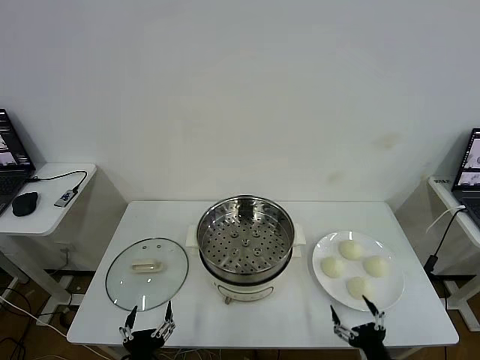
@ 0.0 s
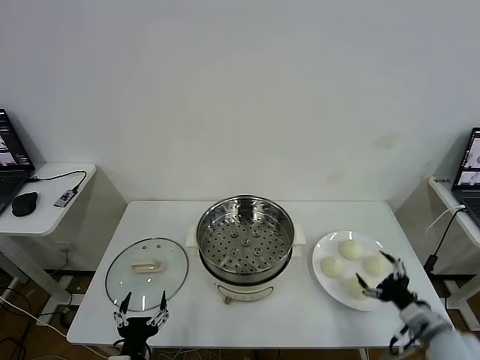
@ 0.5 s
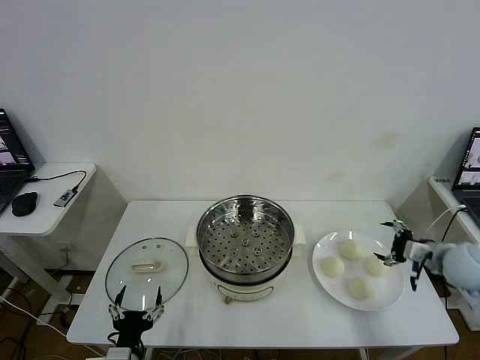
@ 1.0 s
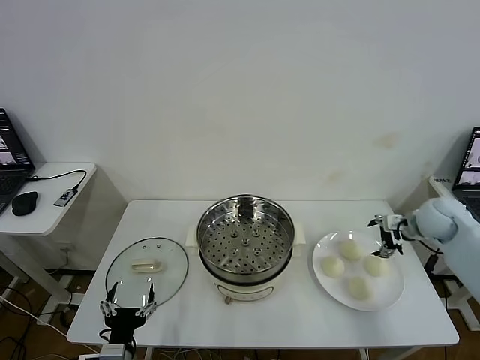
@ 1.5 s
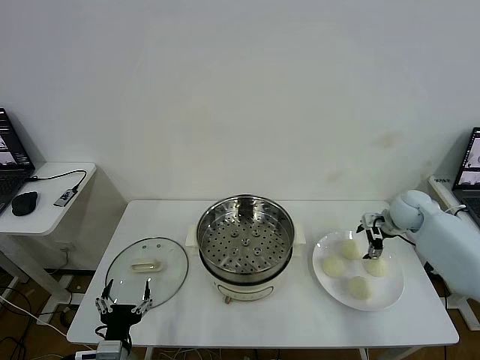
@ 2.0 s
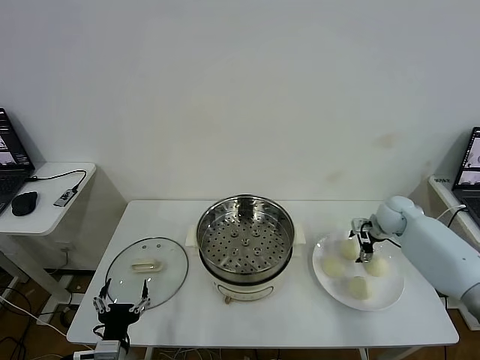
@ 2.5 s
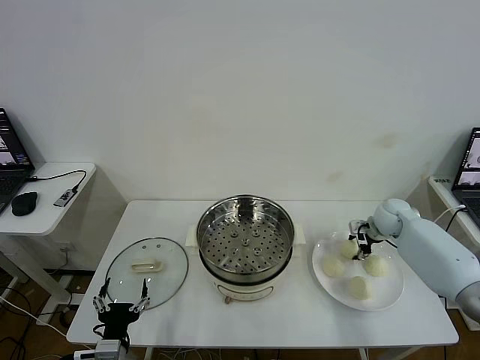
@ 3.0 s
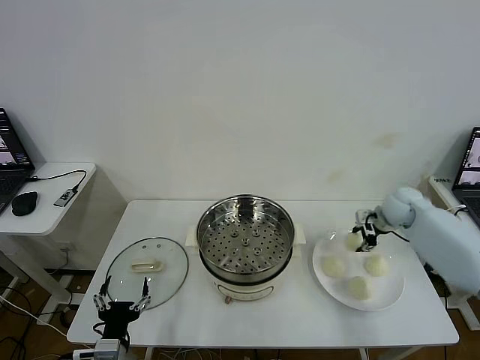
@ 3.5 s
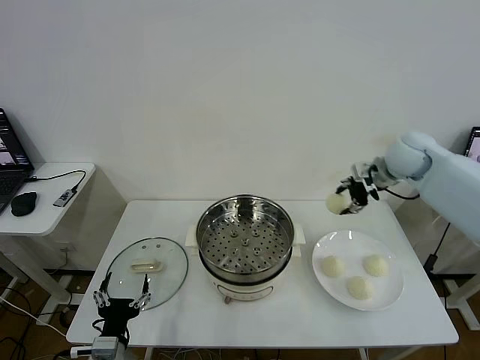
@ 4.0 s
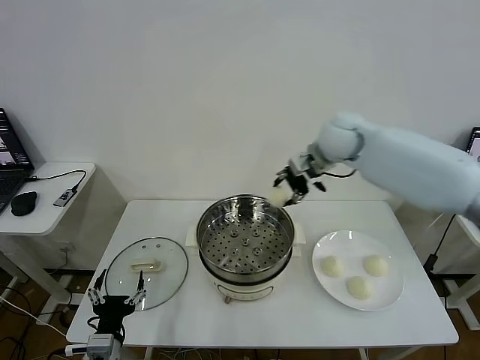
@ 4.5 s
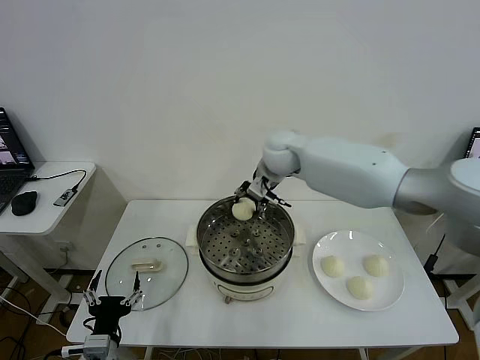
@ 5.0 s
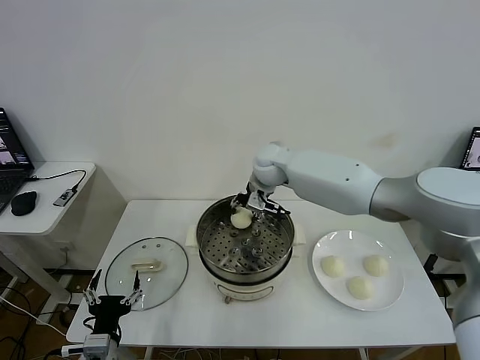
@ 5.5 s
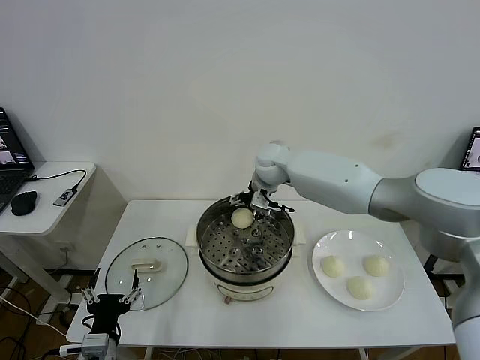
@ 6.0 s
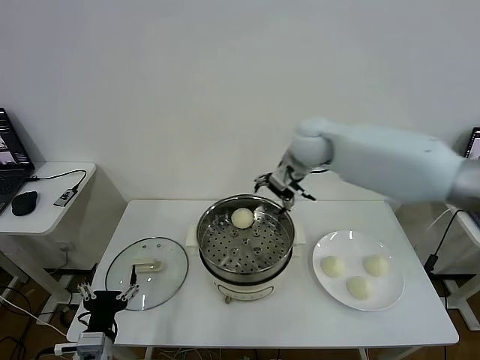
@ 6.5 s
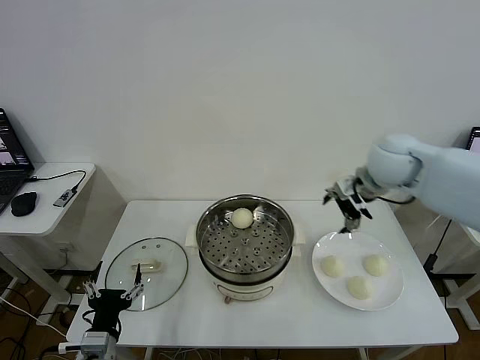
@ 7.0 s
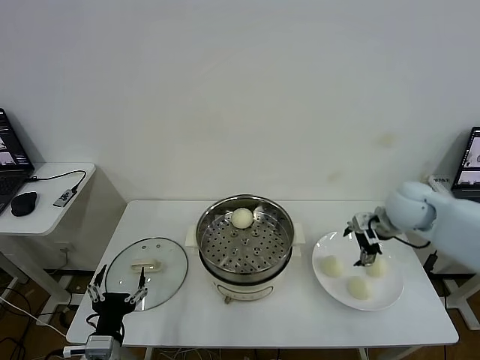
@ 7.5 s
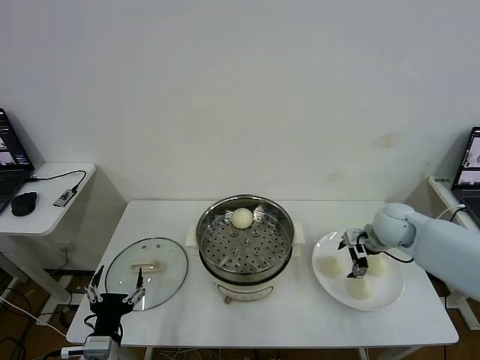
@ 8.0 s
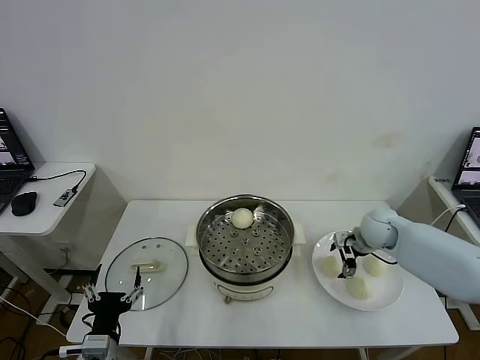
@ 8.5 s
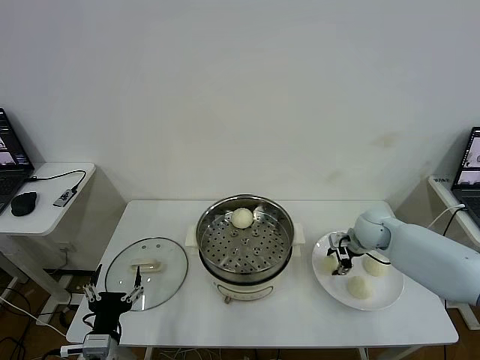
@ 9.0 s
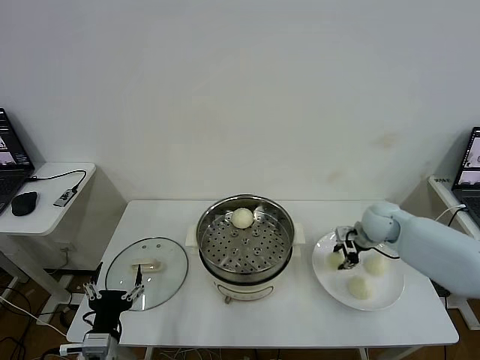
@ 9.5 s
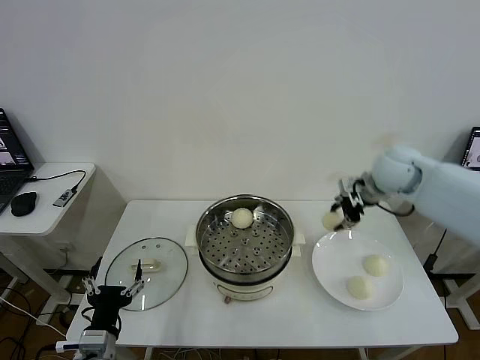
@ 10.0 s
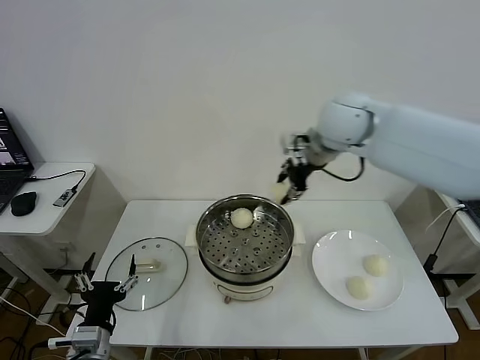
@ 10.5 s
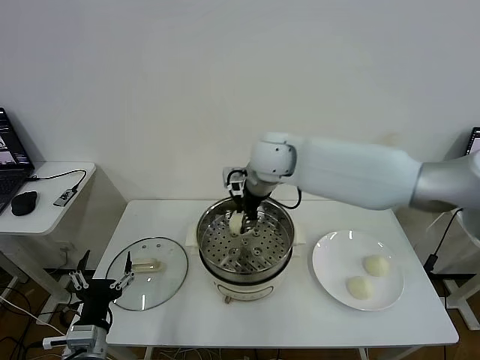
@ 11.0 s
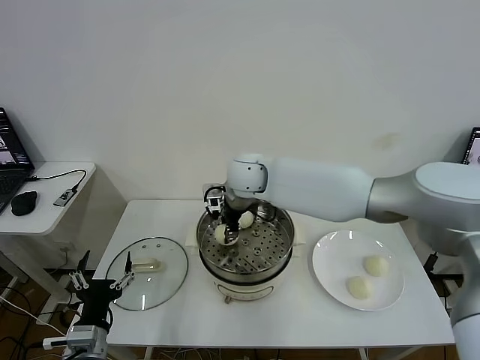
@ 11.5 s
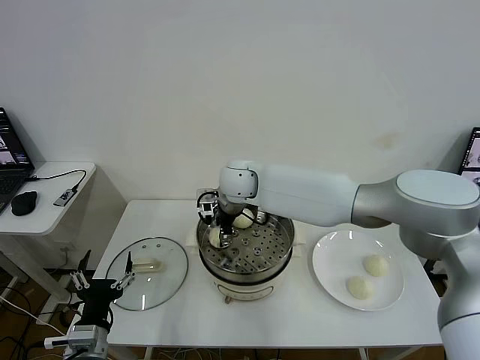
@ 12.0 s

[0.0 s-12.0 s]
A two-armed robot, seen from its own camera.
Task of the whole recording: take steamed baozi put them in steamer then cover it.
Step, 0.0 to 3.0 s: Grasp the baozi in the plate with right gripper.
Step, 3.5 to 6.0 s: Place the baozi on the steamer with right gripper.
Step, 6.5 to 8.5 s: Grasp the baozi in the plate with right gripper.
2.0 to 4.0 s: The right gripper heads upward and to the left, covering about 20 cm, and closes.
4.0 to 6.0 s: The right gripper moves to the left, roughly 25 cm, and opens its fingers.
6.0 to 8.0 s: The right gripper is displaced to the right, downward and backward by some 30 cm.
8.0 to 10.0 s: The right gripper heads upward, covering about 20 cm, and closes up.
10.0 to 12.0 s: The right gripper shifts roughly 30 cm to the left, and opens up.

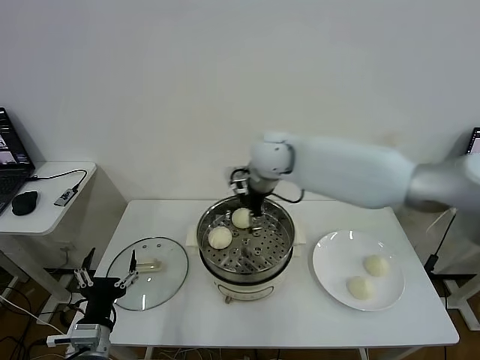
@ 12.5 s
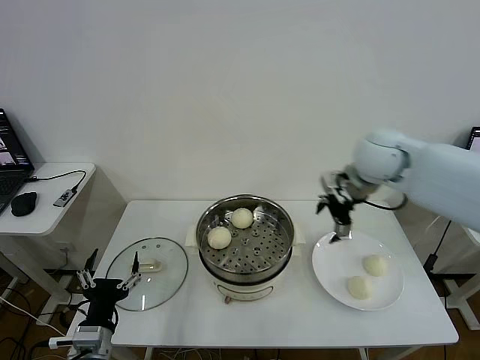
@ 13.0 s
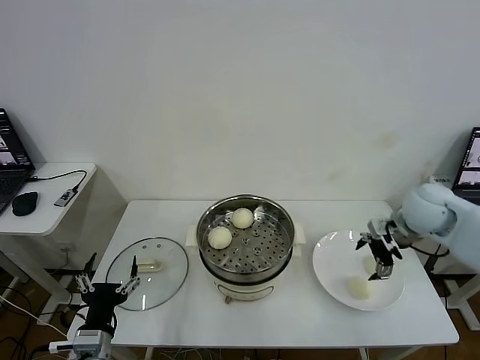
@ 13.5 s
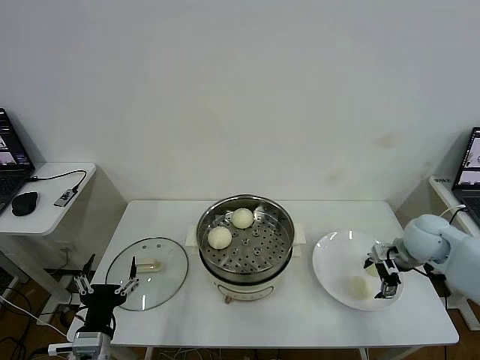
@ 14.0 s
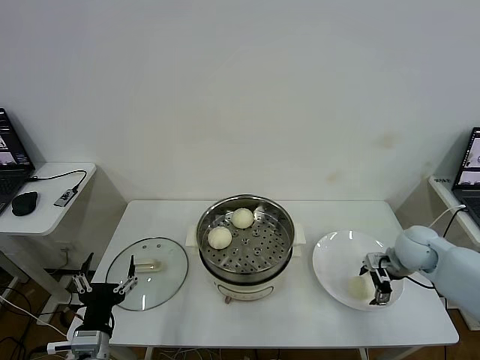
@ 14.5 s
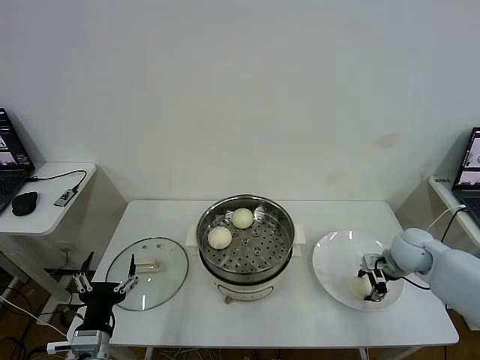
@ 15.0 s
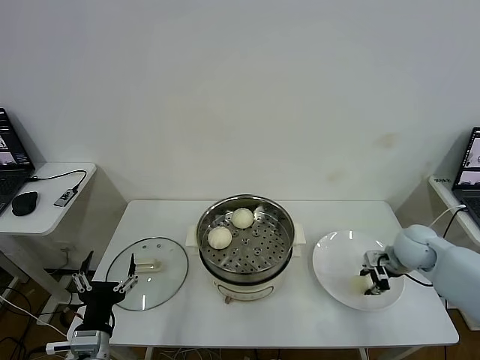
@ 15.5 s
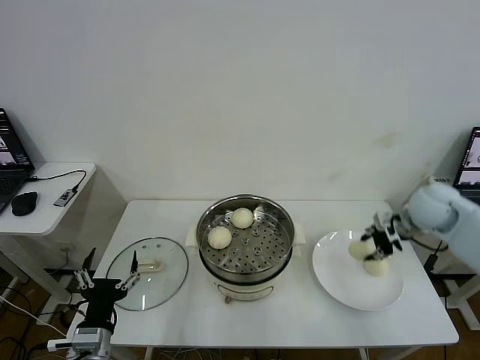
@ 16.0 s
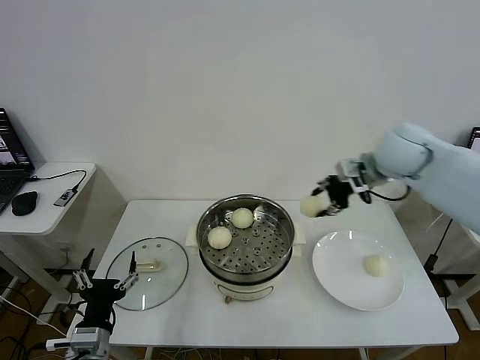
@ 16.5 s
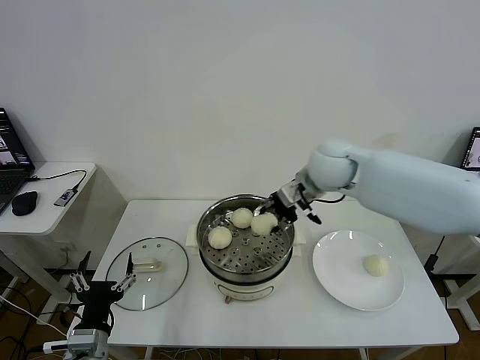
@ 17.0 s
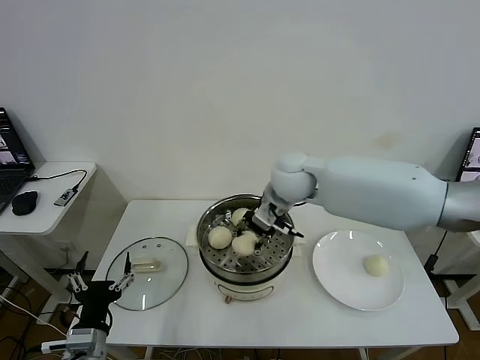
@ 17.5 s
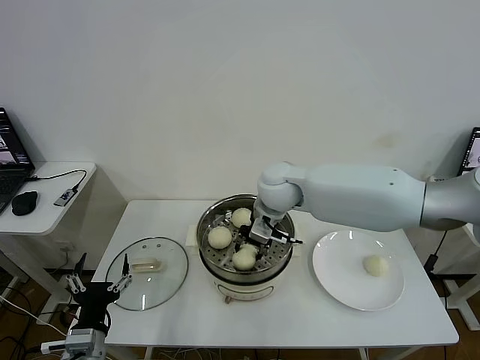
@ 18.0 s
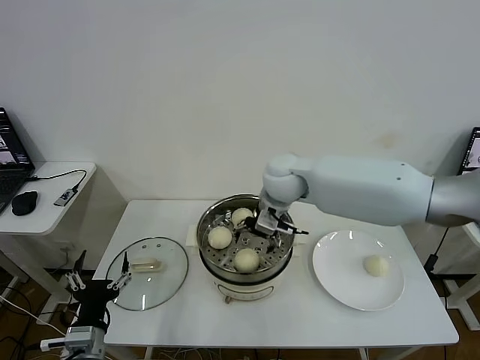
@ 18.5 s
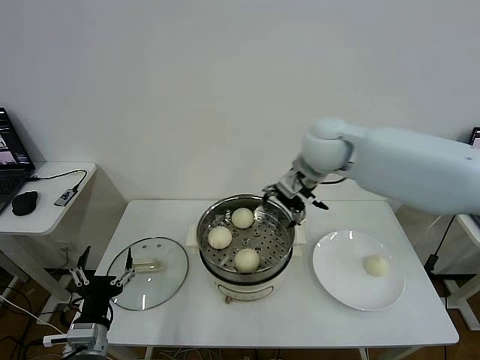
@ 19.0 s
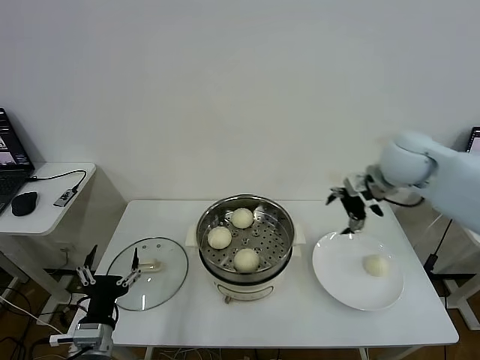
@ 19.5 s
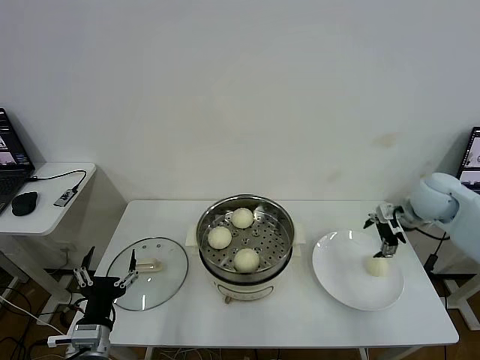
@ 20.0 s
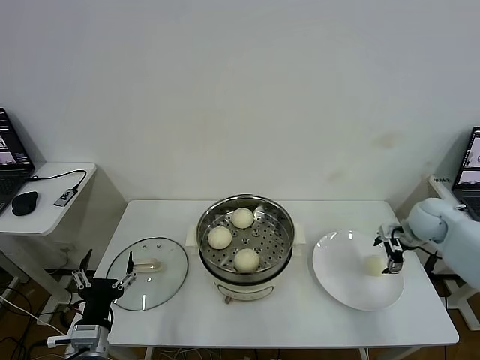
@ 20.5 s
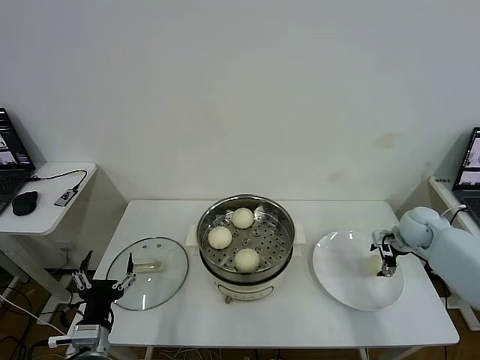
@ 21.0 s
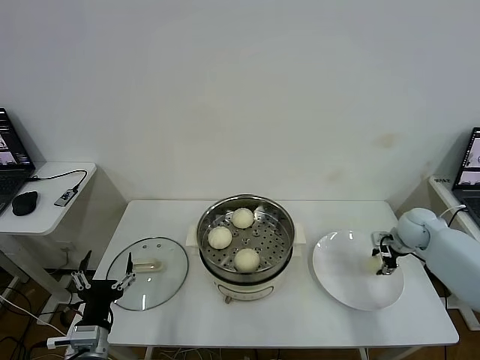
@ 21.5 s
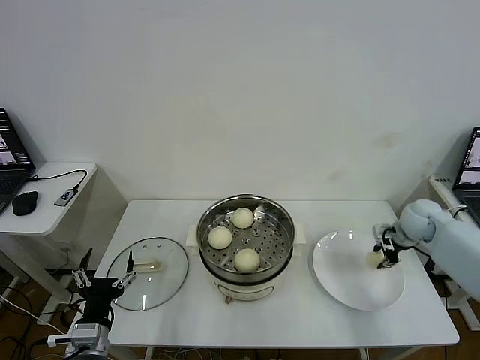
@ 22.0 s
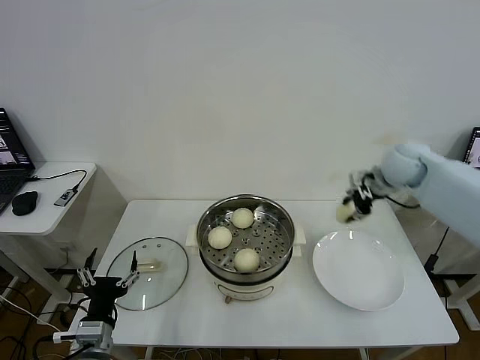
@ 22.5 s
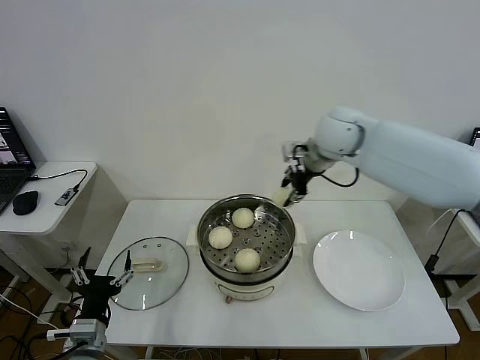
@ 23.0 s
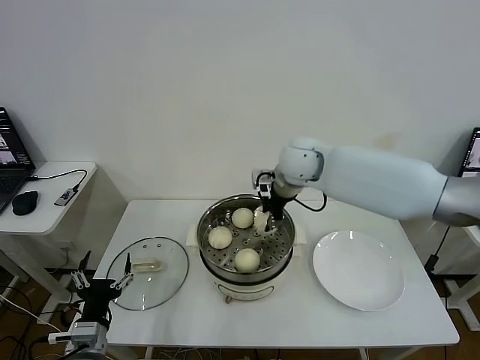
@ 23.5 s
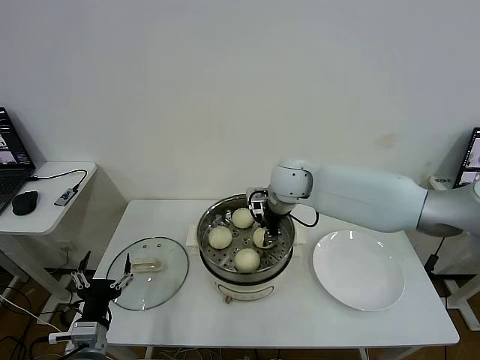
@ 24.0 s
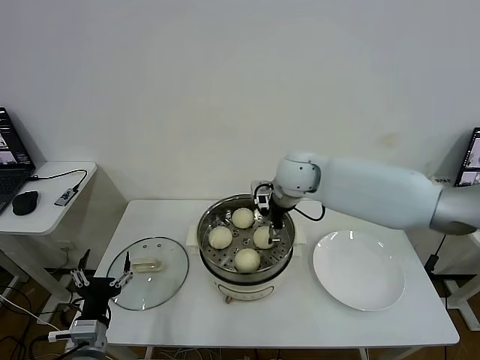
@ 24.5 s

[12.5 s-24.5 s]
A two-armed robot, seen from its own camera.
Task of the whole recording: take steamed baozi put them in steamer then cover it.
Step, 12.5 to 15.0 s: Grasp the baozi in the plate with right gripper.
Step, 15.5 to 18.0 s: Place the baozi on the steamer with right gripper.
Step, 18.5 to 21.5 s: Grasp the baozi in the plate with right gripper.
Step, 22.0 to 24.5 s: Place the baozi on the steamer with right gripper.
12.5 to 14.5 s: The right gripper travels to the right and downward by about 35 cm.
14.5 to 16.5 s: The right gripper heads upward and to the left, covering roughly 25 cm, and closes its fingers.
16.5 to 18.5 s: The right gripper heads to the left, covering some 20 cm, and opens up.
18.5 to 20.5 s: The right gripper travels to the right by approximately 35 cm.
20.5 to 22.5 s: The right gripper heads upward and to the left, covering roughly 15 cm, and closes up.
22.5 to 24.5 s: The right gripper moves to the left, approximately 20 cm, and opens its fingers.

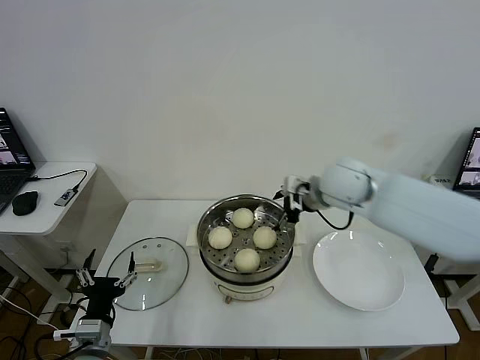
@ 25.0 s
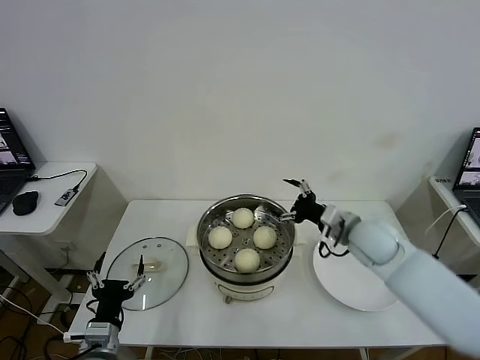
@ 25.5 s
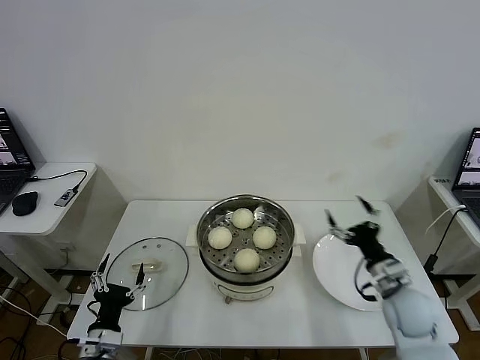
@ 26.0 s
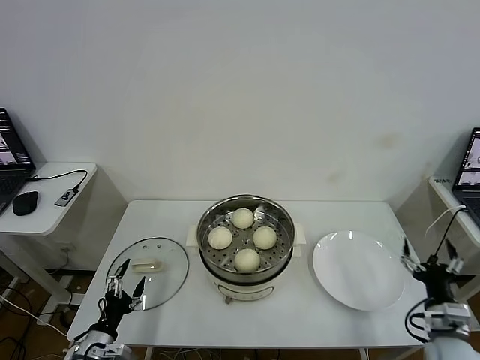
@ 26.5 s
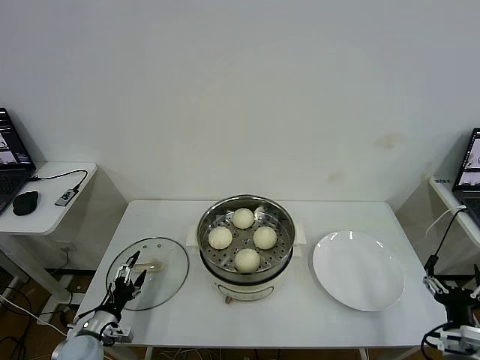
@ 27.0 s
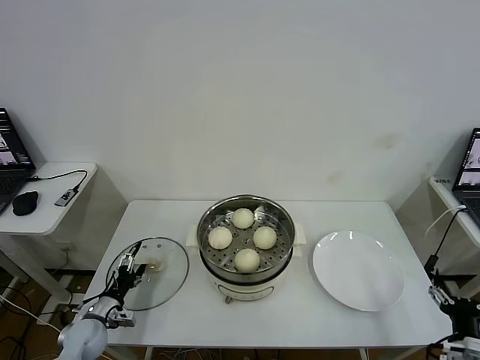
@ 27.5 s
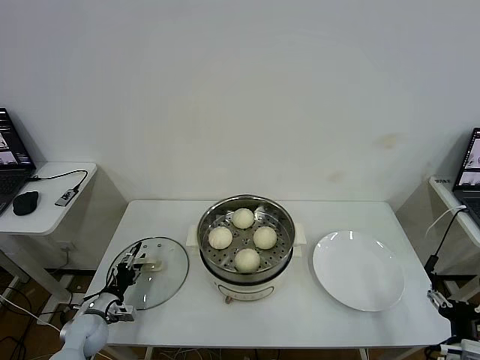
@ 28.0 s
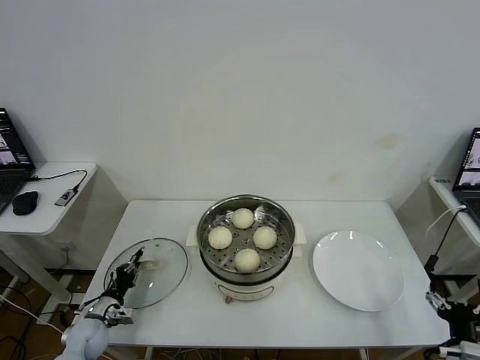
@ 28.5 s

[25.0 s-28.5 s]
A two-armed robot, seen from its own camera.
Task of the whole recording: take steamed baozi put them in steamer then cover it.
25.0 to 27.0 s: The left gripper goes approximately 15 cm downward, to the left and forward. The right gripper moves backward, downward and to the right, some 40 cm.
27.0 to 28.5 s: The left gripper travels forward by approximately 5 cm, and closes its fingers.
